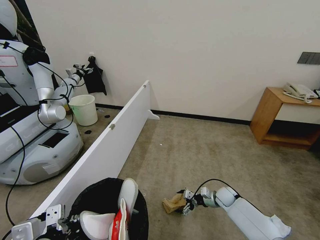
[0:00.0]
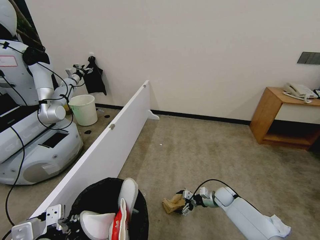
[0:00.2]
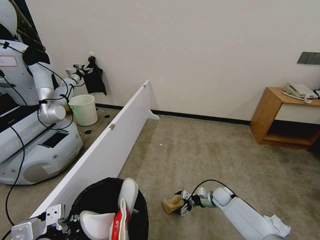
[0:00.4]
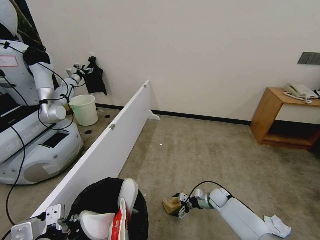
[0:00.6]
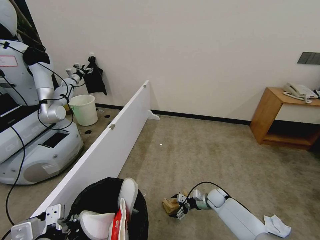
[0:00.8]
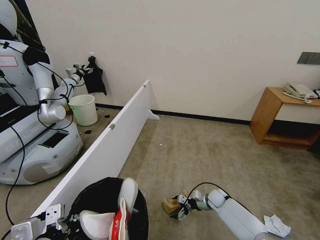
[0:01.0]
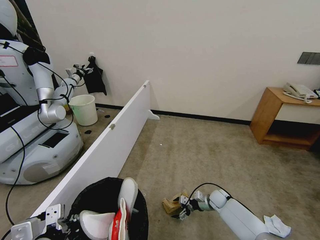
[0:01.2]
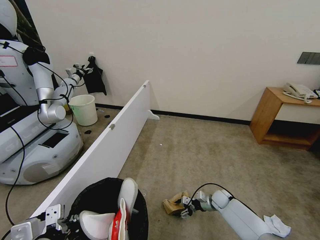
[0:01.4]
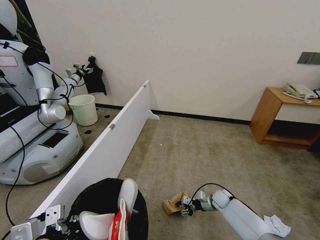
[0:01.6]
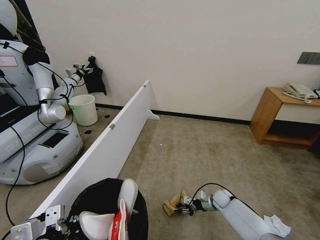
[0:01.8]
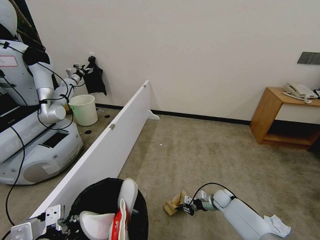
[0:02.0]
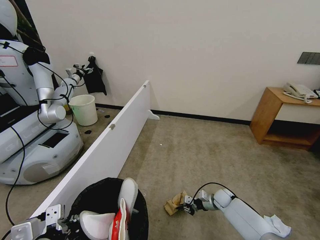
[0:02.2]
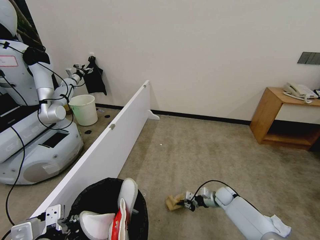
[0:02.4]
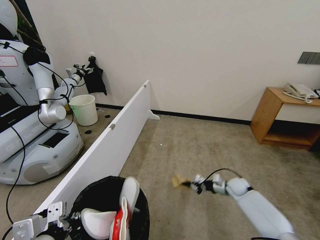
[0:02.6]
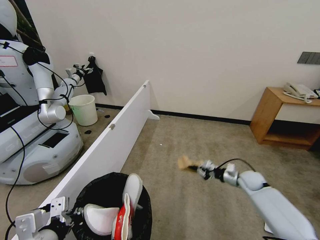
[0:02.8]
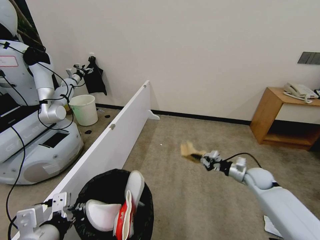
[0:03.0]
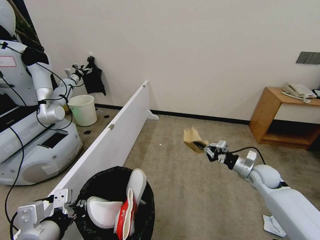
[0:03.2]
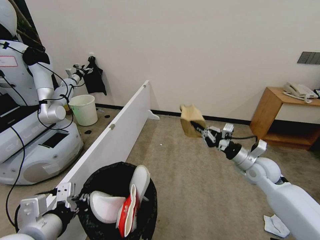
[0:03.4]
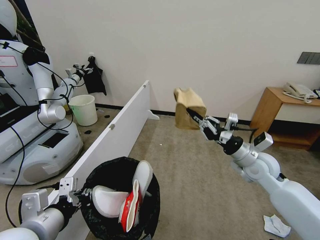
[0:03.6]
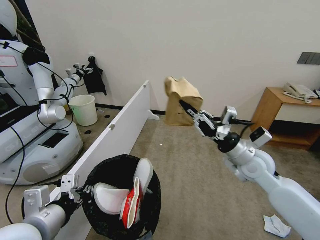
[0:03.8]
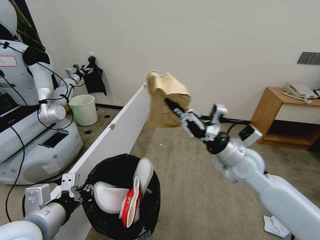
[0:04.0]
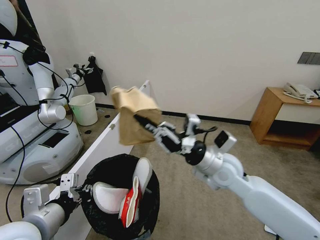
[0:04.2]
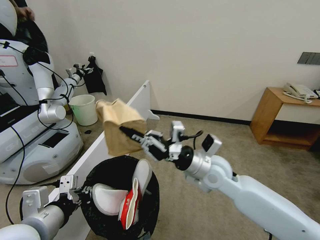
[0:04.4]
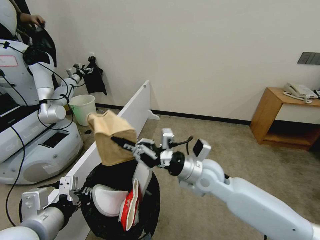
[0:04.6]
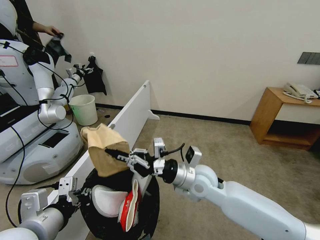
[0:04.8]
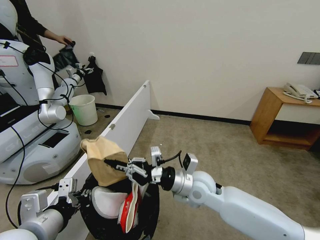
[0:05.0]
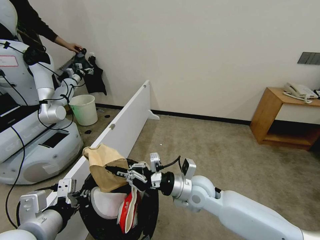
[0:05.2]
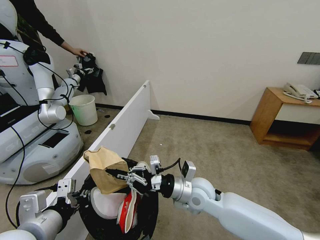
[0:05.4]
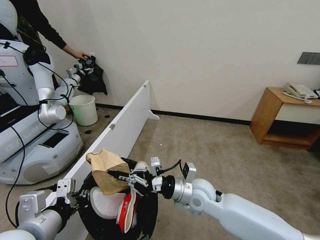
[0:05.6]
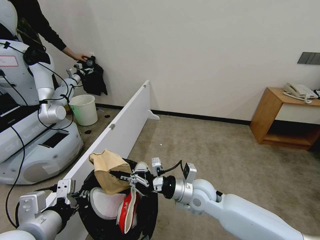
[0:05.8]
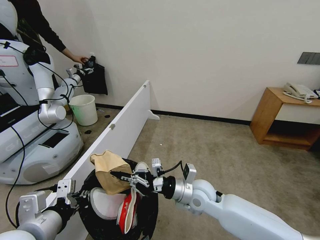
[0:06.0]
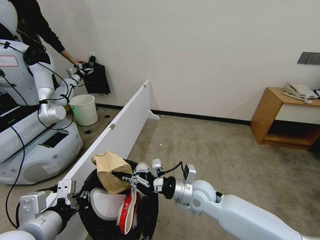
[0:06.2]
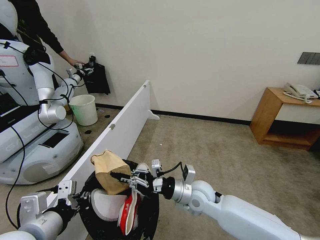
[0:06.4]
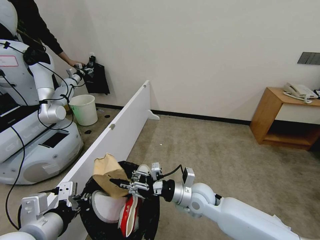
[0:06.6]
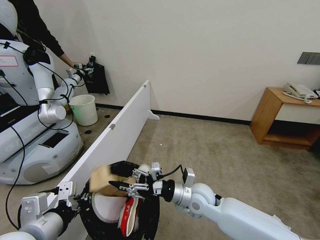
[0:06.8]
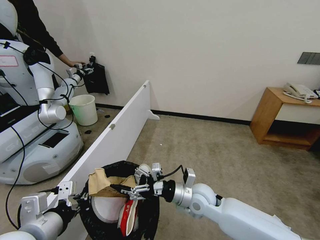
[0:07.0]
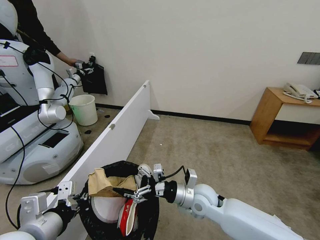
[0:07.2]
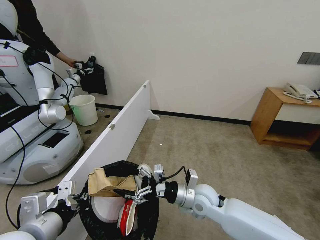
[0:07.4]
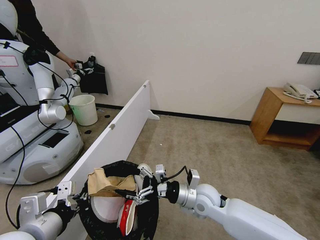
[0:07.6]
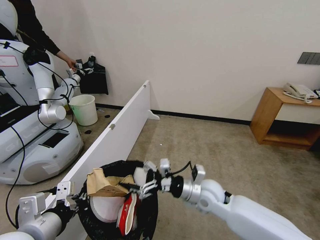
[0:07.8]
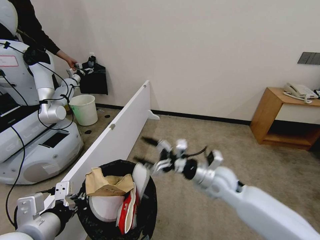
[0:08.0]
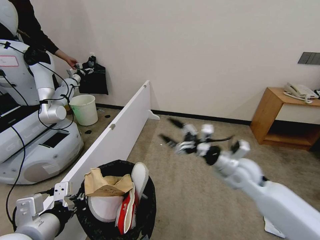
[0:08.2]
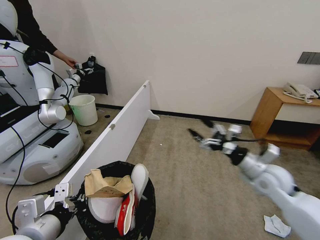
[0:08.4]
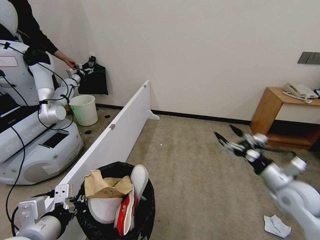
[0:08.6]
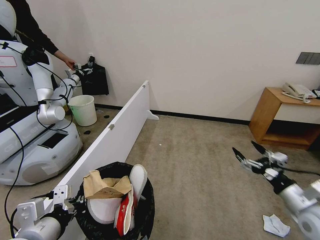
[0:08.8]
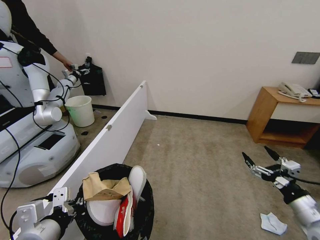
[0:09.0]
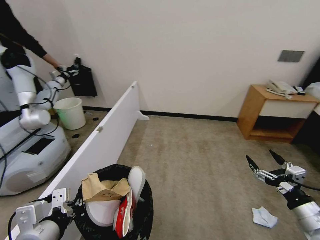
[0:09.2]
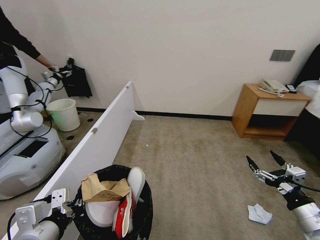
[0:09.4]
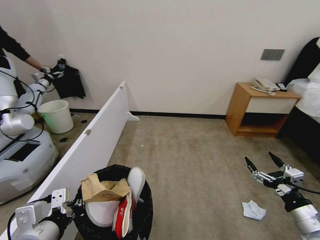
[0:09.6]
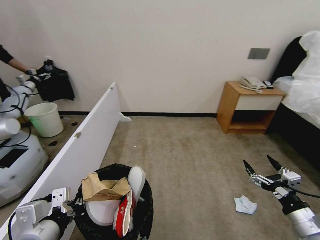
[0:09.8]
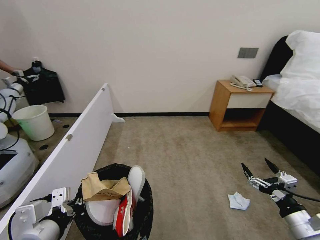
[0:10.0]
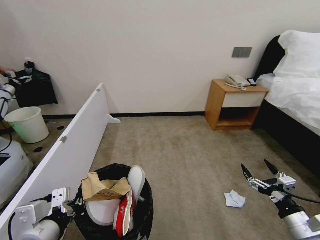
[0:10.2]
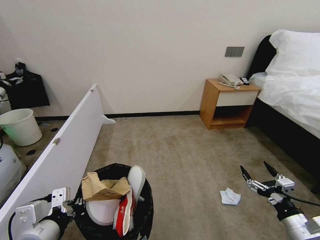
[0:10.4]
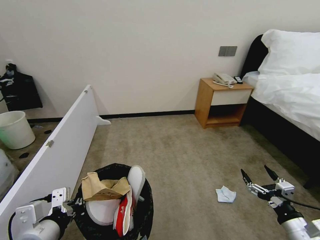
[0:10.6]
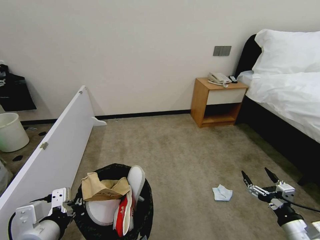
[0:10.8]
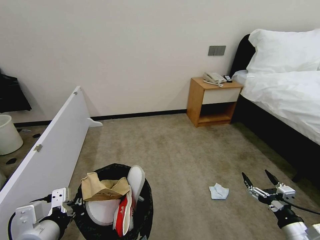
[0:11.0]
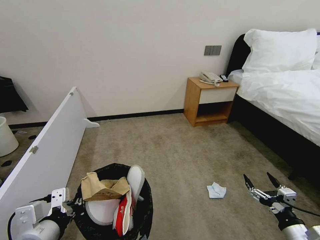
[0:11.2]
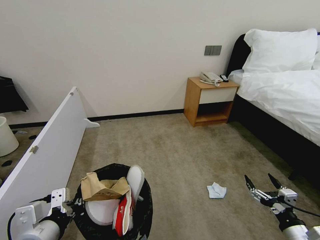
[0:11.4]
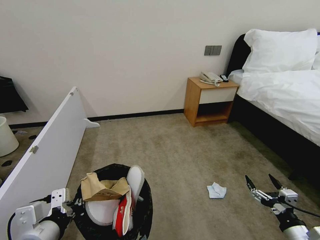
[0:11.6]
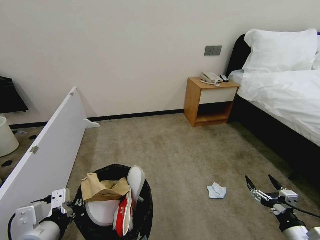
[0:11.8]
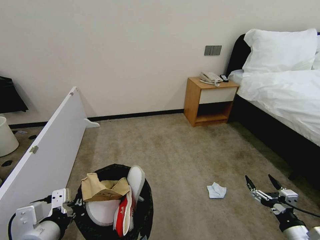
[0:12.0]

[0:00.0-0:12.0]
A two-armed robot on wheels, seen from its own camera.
Task of the whole recording: Pick up the trash bin, then pick up the garbage from the floor and place it into the trash bin.
0:00.0 to 0:01.6: The right gripper closes up.
0:01.6 to 0:03.0: The right gripper moves upward and to the right, approximately 20 cm, and closes.
0:03.0 to 0:04.4: The right gripper goes approximately 30 cm to the left and upward.
0:04.4 to 0:06.0: The right gripper goes roughly 10 cm downward.
0:06.0 to 0:07.6: The right gripper opens.
0:07.6 to 0:09.0: The right gripper is displaced to the right and backward by approximately 30 cm.
0:09.0 to 0:10.4: The right gripper changes place by roughly 5 cm.

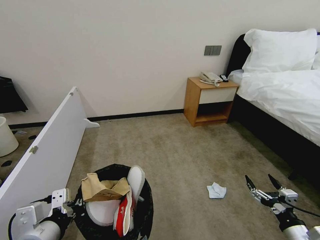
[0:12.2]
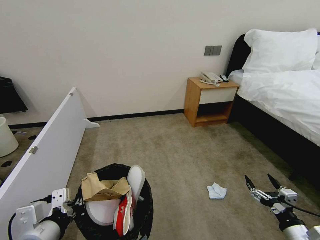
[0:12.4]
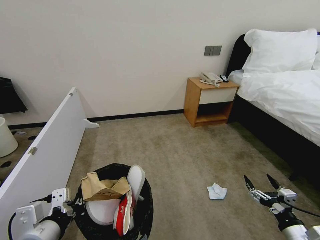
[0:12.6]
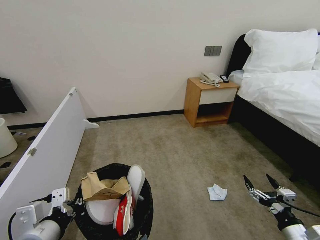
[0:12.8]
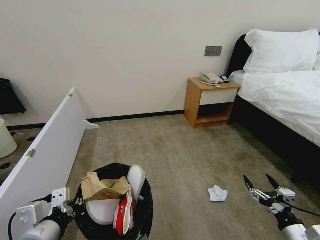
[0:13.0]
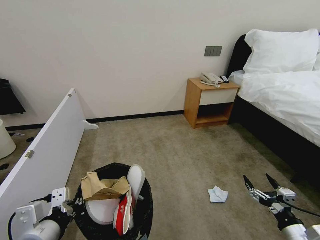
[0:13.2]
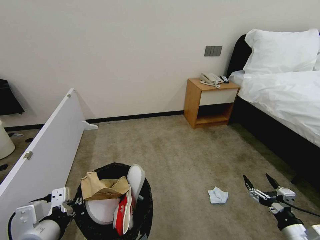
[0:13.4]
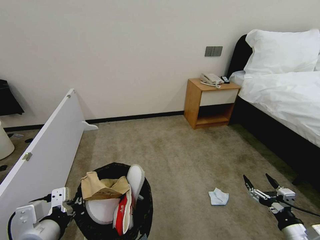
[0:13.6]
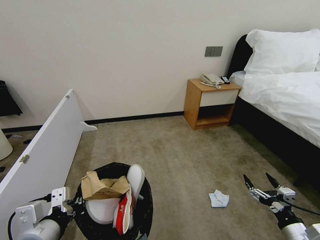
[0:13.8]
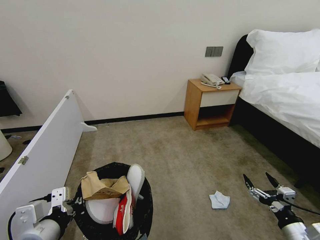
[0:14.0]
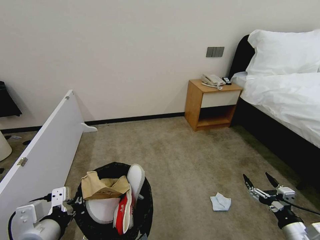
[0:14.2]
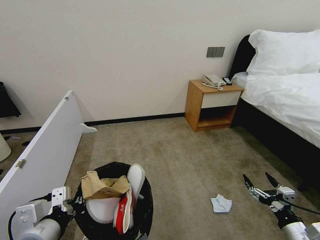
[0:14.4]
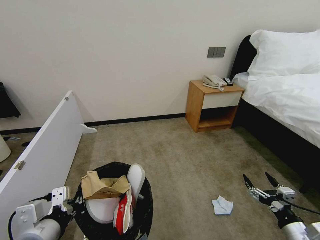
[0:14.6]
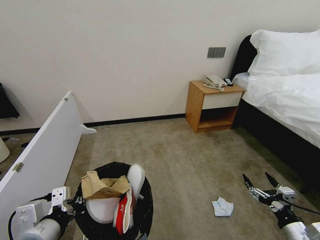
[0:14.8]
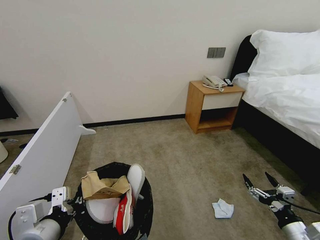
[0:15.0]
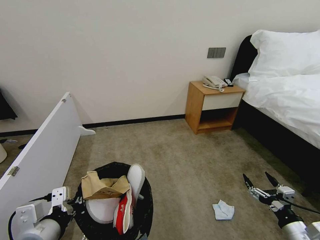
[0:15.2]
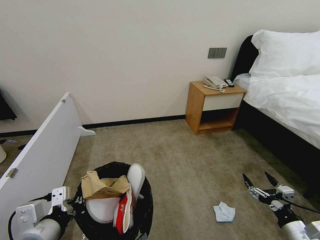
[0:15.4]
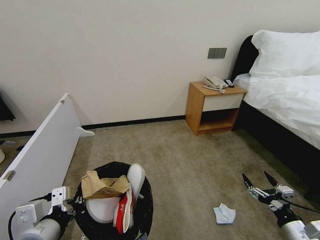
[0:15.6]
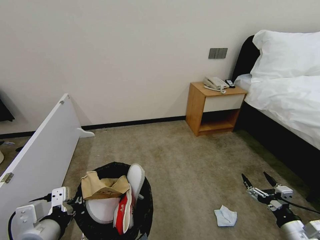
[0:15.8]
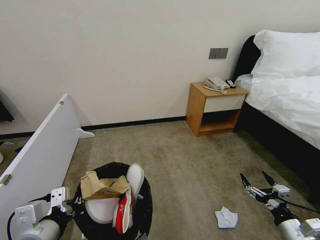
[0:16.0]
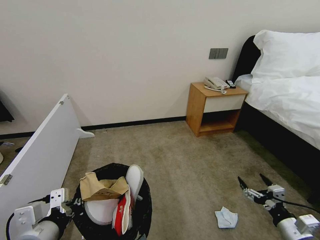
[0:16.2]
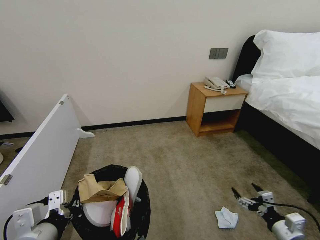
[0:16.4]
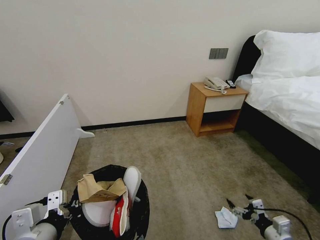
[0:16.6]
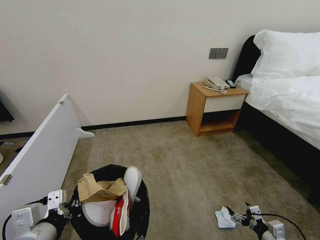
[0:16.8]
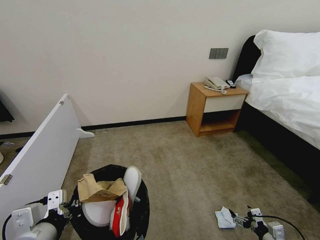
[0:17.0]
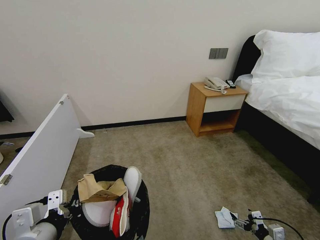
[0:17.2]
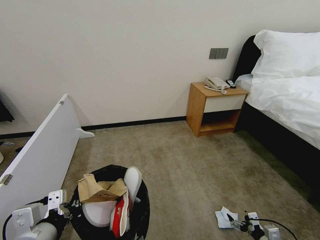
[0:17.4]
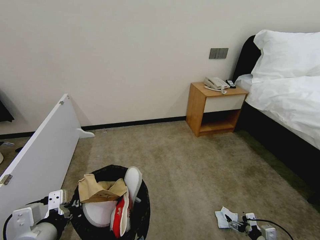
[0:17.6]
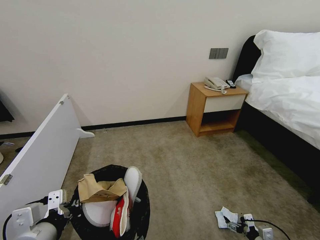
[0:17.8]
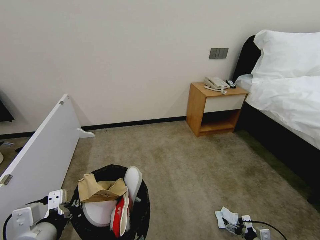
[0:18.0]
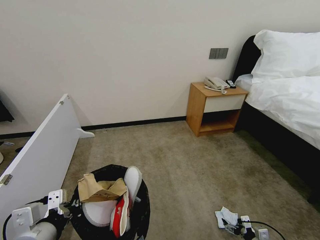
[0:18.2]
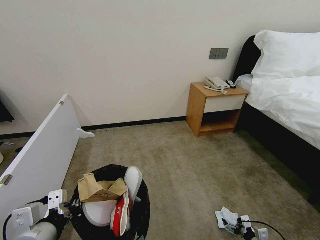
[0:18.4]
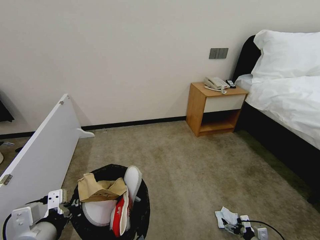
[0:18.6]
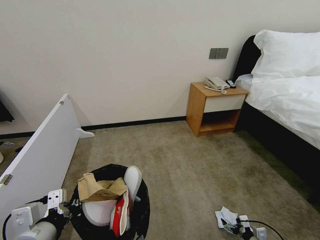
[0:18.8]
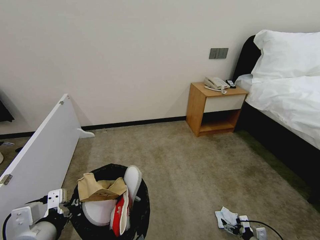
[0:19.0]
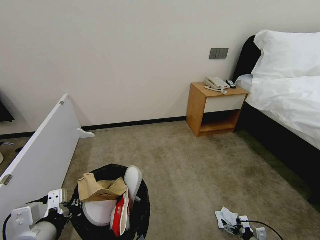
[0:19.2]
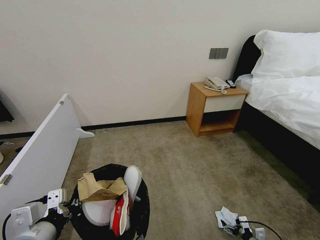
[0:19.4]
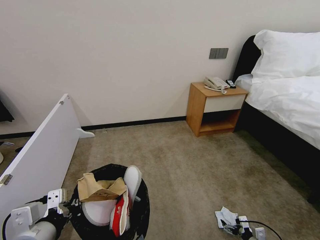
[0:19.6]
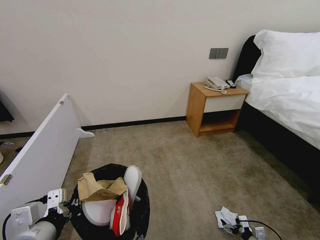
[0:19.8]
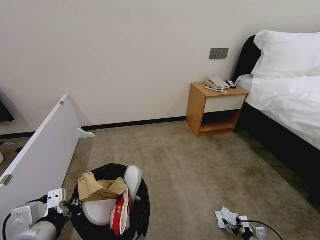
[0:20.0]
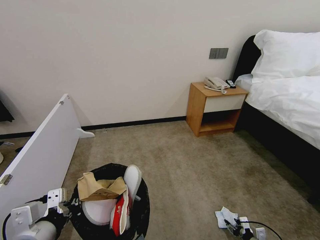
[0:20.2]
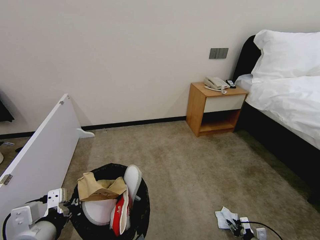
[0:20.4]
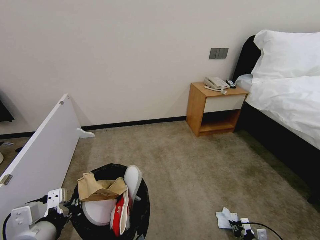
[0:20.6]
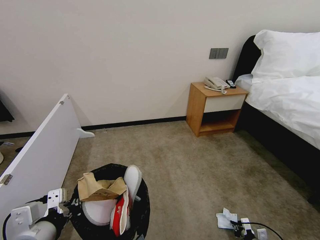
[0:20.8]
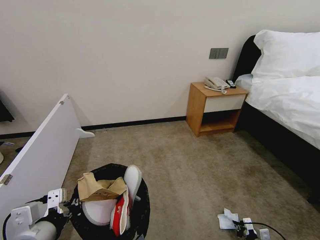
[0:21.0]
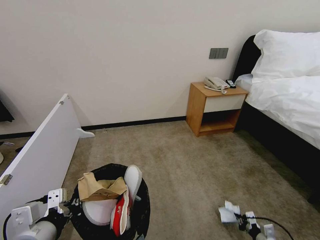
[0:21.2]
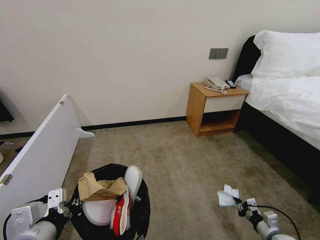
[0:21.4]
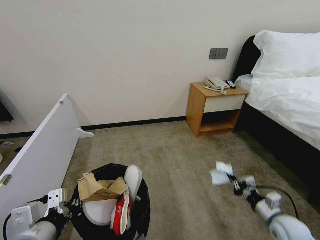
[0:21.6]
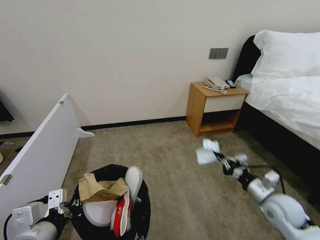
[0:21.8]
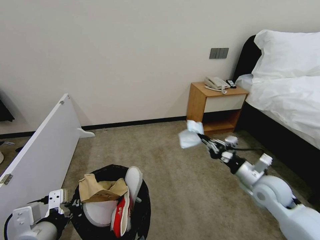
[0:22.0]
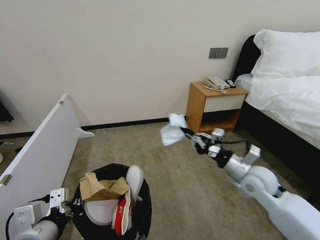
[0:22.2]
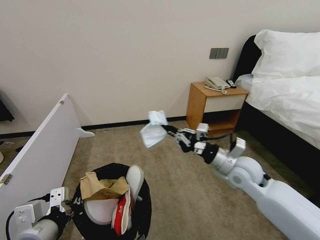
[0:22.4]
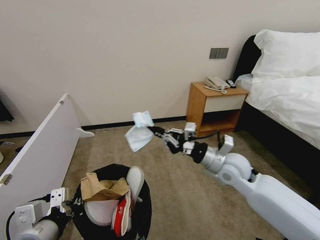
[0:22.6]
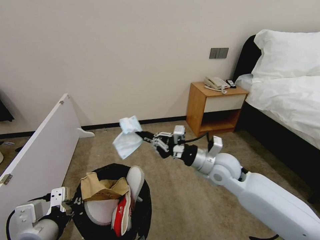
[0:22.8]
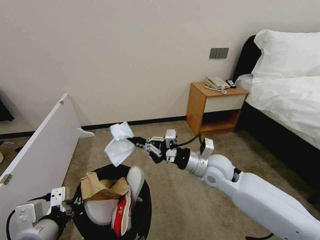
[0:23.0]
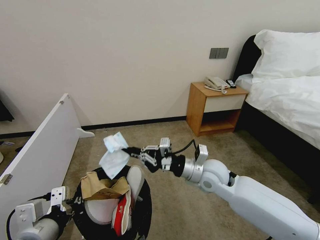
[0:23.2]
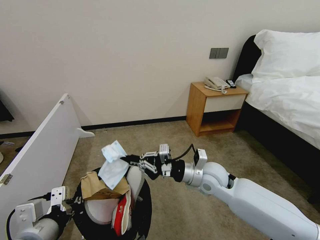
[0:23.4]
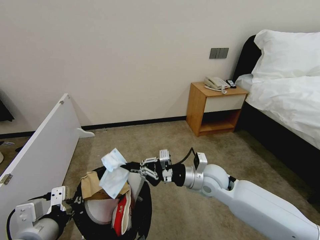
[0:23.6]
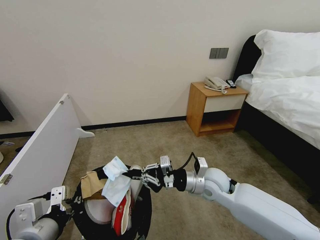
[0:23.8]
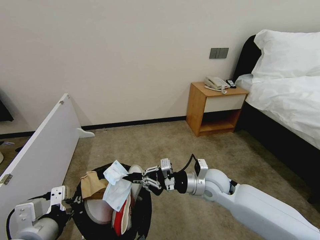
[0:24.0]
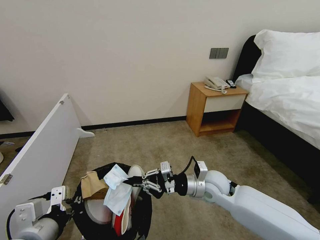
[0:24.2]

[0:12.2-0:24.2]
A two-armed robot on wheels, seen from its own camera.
Task of the whole recording: Pick up the trash bin, then pick up the garbage from the floor and place it into the trash bin.
0:12.2 to 0:15.2: The two grippers keep their place.
0:15.2 to 0:16.6: The right gripper moves downward, about 5 cm.
0:16.6 to 0:18.2: The right gripper travels downward by approximately 10 cm.
0:18.2 to 0:19.8: The grippers stay close to where they were, moving slightly.
0:19.8 to 0:21.2: The right gripper closes its fingers.
0:21.2 to 0:22.6: The right gripper moves upward, to the left and forward, some 40 cm.
0:22.6 to 0:24.2: The right gripper heads downward, covering approximately 5 cm.
